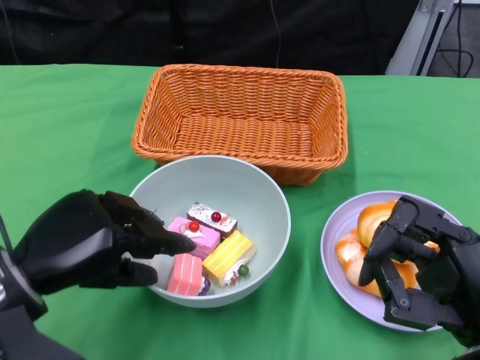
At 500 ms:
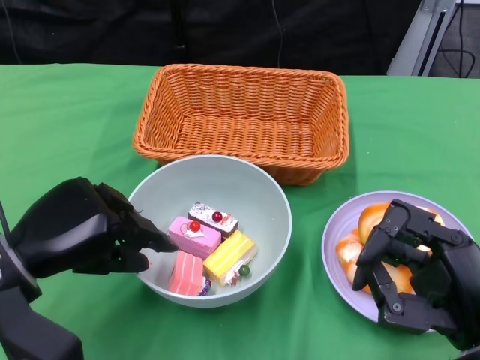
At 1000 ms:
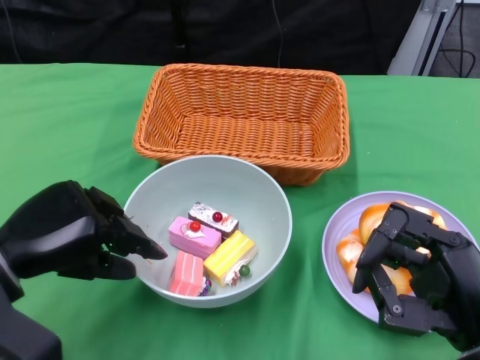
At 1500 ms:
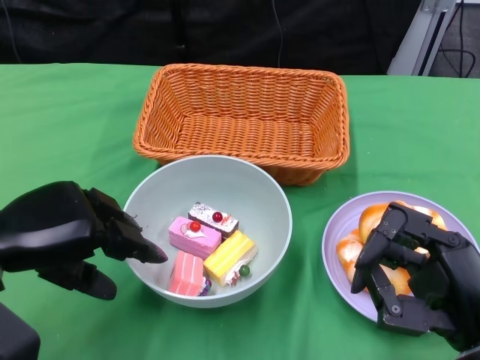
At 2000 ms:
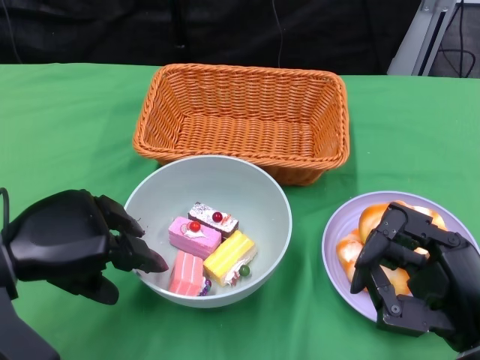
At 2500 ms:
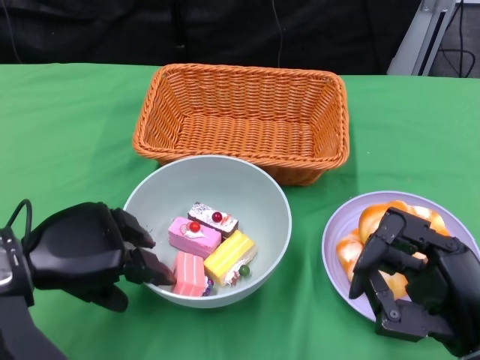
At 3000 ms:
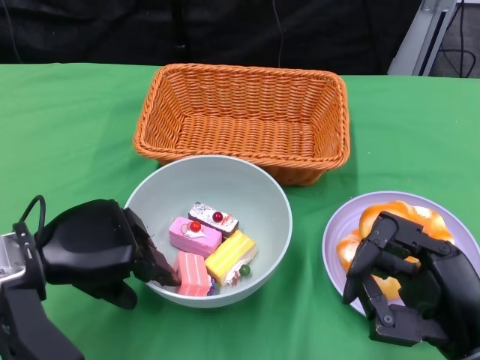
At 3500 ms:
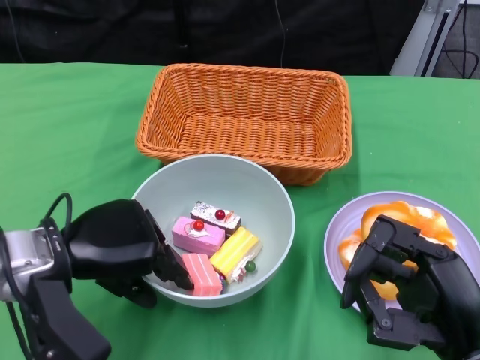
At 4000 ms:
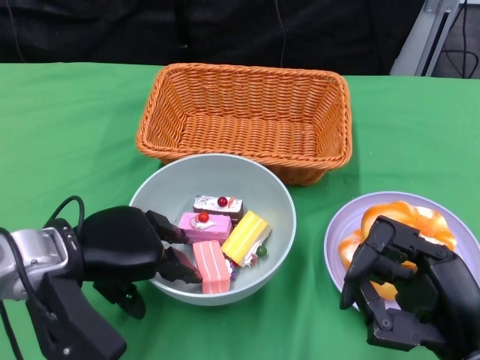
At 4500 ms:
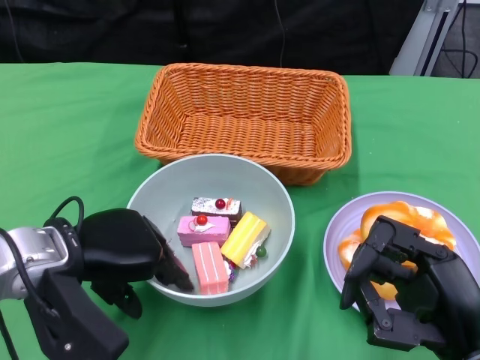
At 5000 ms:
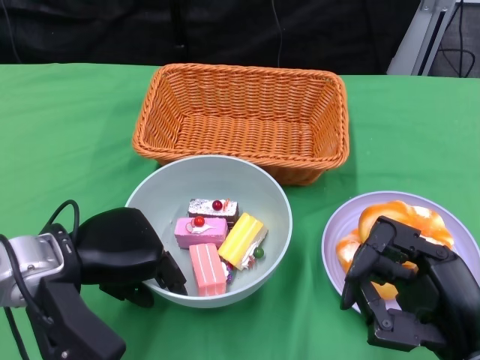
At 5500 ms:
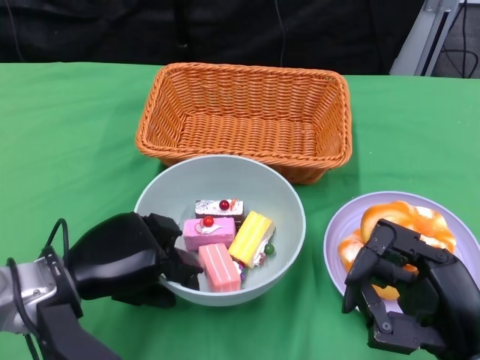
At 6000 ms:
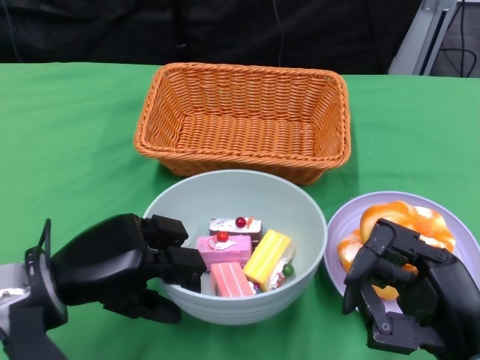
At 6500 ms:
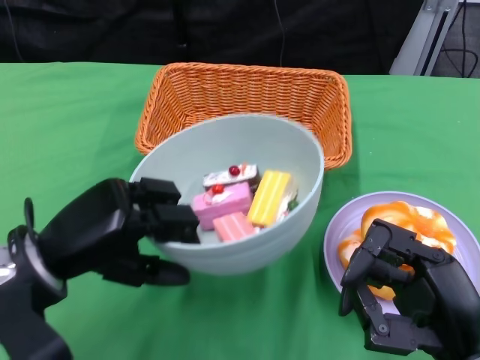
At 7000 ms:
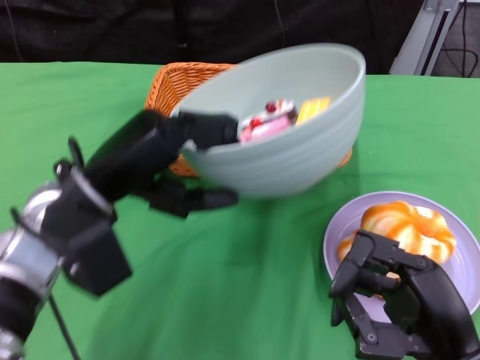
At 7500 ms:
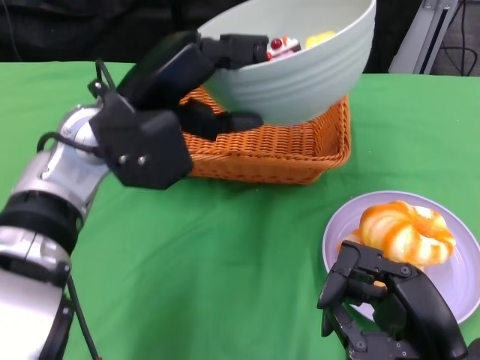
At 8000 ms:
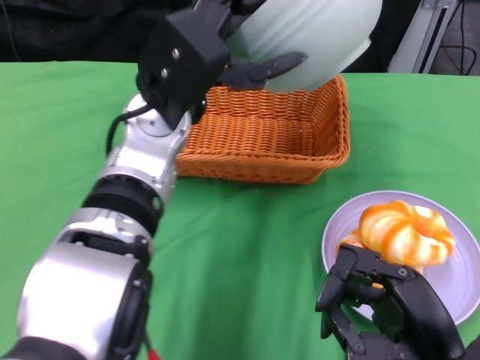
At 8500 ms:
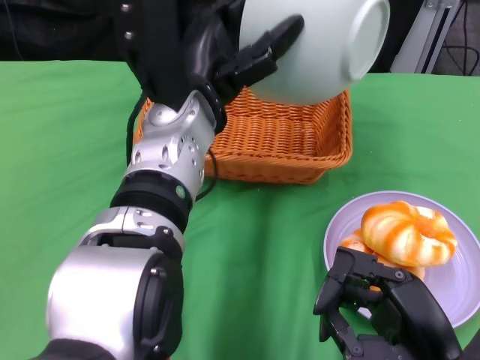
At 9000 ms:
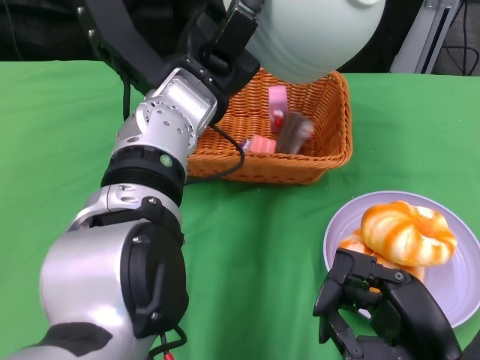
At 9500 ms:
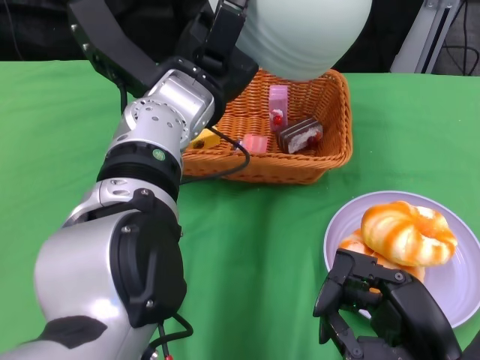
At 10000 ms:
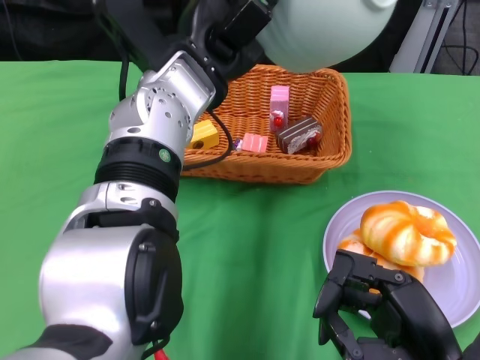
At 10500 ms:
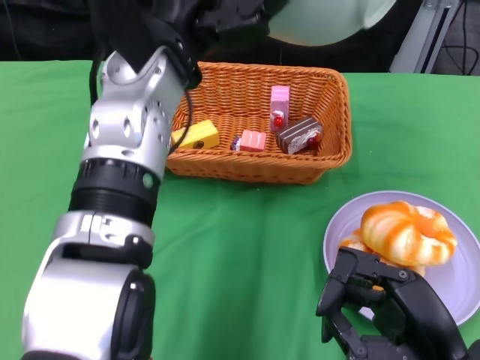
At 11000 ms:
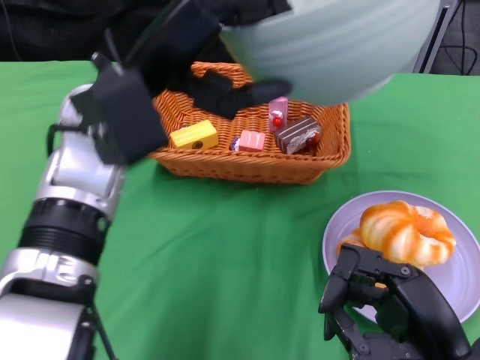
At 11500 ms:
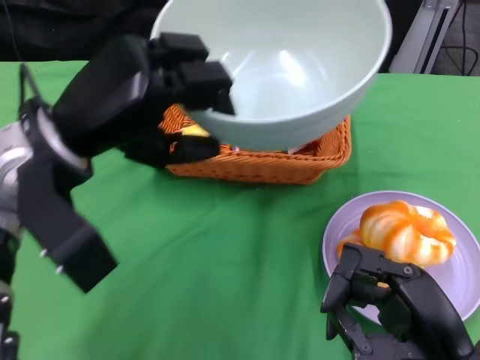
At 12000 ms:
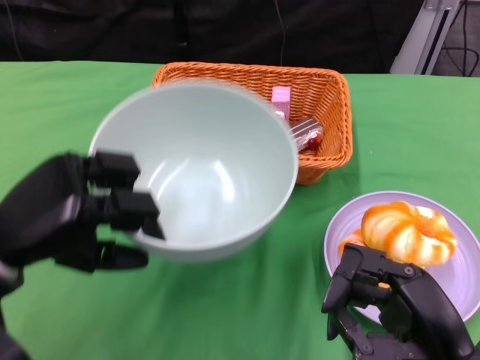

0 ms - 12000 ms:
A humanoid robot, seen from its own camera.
Step, 0 ms - 5000 ms: Grasp the bowl with the left gripper.
Step, 5500 ms - 10000 ms: Pour the cake into the basket with the left gripper.
2000 ms - 4000 ms: The left hand goes about 5 cm to the right.
6000 ms - 8000 ms: The left hand travels to the right, upward and forward by about 20 cm.
10000 ms - 12000 ms: The left hand heads to the left, backward and downward, covering about 25 cm.

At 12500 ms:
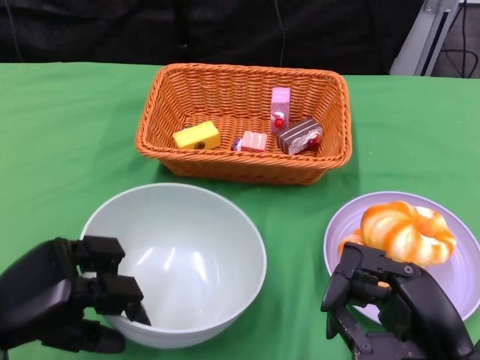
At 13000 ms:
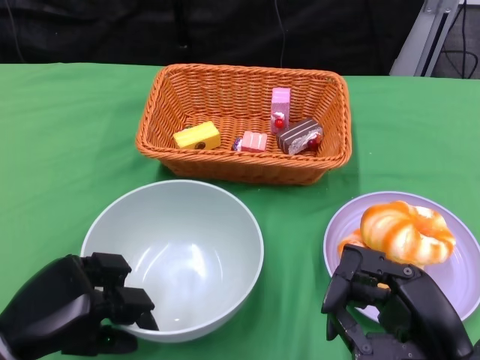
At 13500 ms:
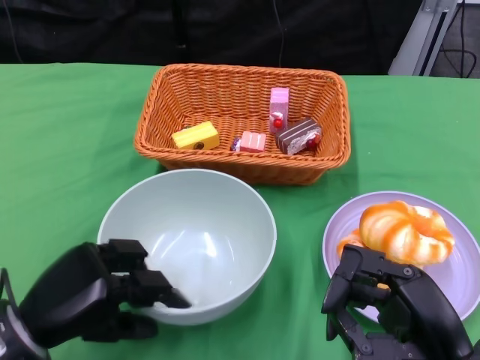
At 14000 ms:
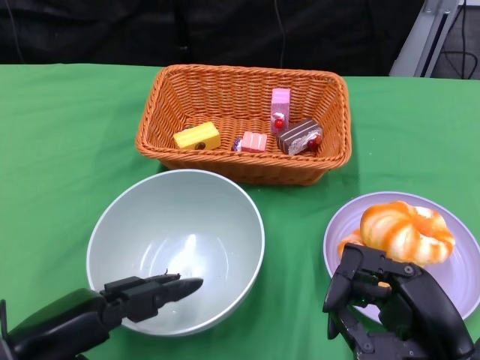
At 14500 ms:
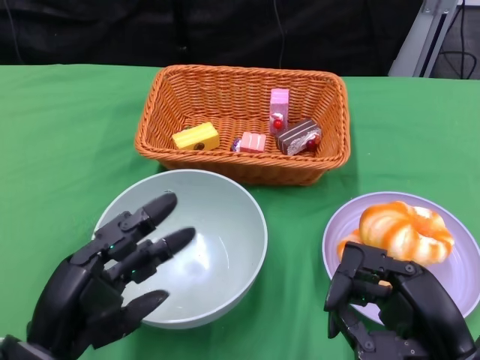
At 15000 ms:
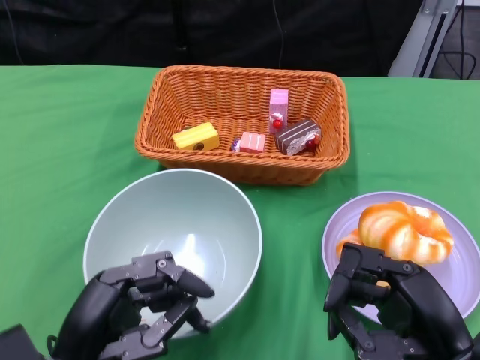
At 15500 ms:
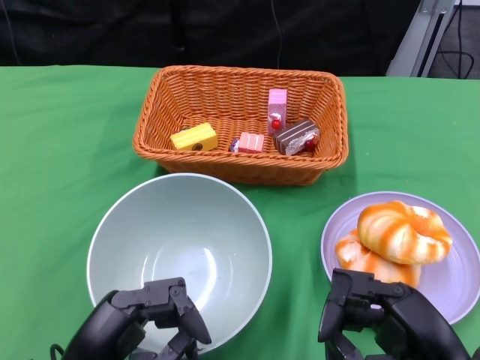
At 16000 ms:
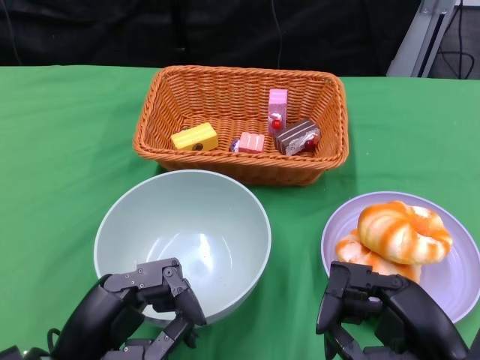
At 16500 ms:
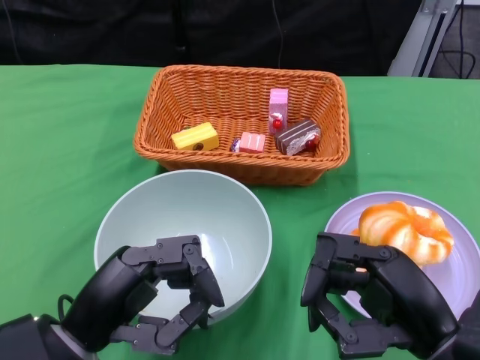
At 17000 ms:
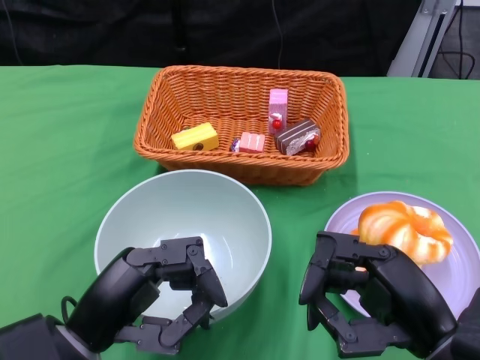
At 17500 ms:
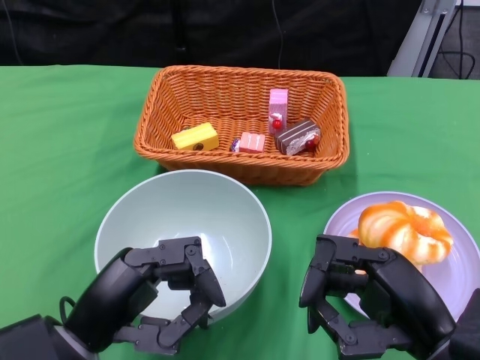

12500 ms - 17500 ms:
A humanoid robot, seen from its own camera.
12500 ms - 15000 ms: The left hand shifts approximately 5 cm to the right.
15000 ms - 17500 ms: The hands move only a little.
